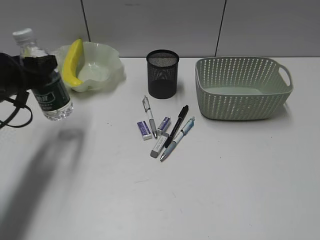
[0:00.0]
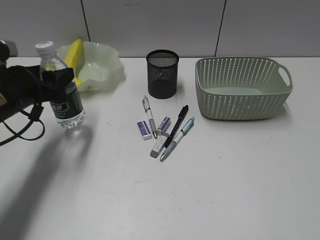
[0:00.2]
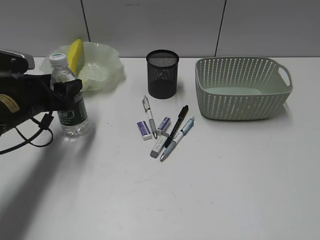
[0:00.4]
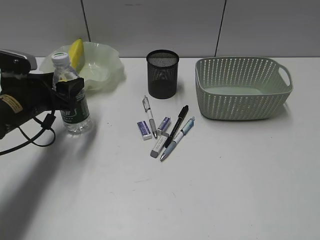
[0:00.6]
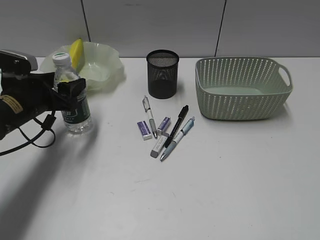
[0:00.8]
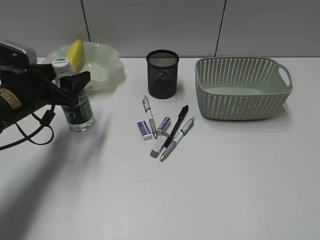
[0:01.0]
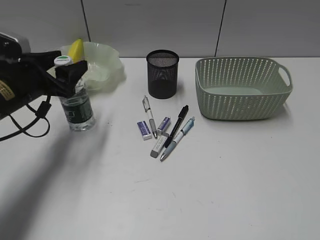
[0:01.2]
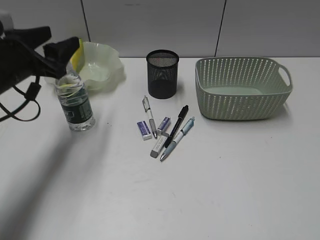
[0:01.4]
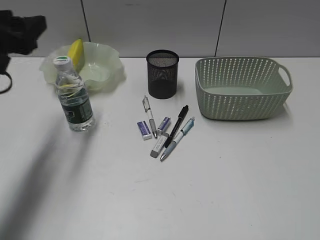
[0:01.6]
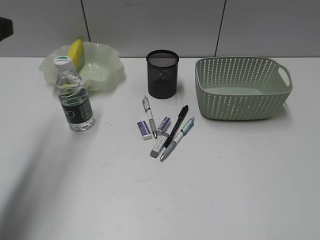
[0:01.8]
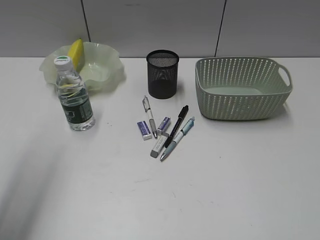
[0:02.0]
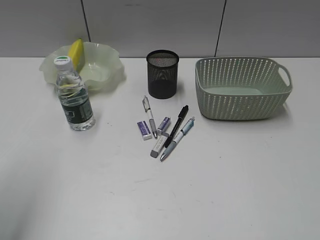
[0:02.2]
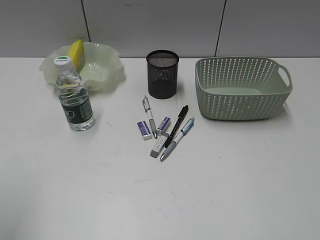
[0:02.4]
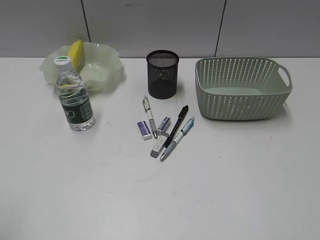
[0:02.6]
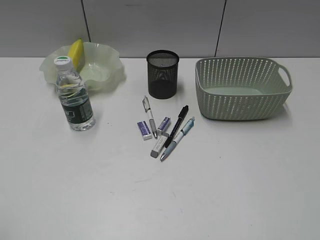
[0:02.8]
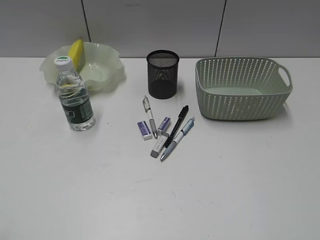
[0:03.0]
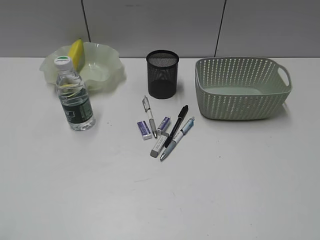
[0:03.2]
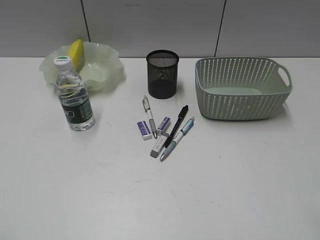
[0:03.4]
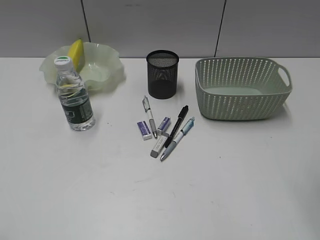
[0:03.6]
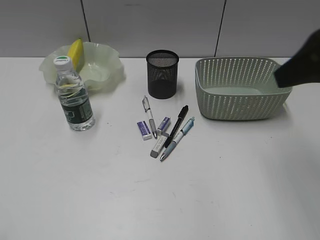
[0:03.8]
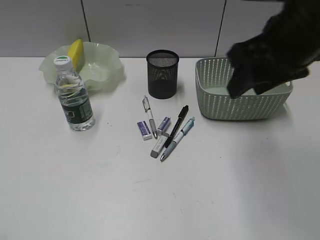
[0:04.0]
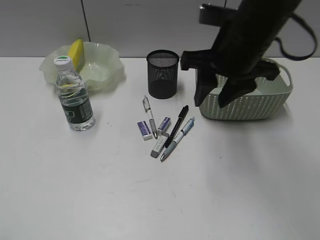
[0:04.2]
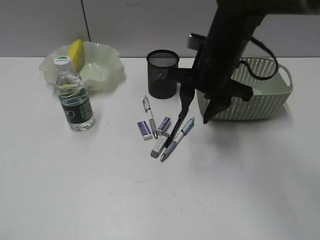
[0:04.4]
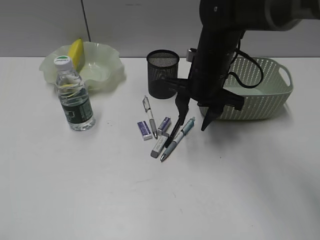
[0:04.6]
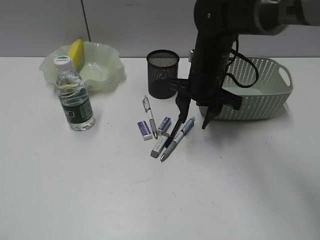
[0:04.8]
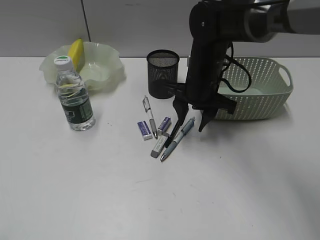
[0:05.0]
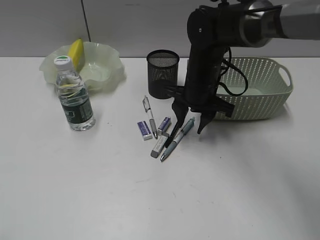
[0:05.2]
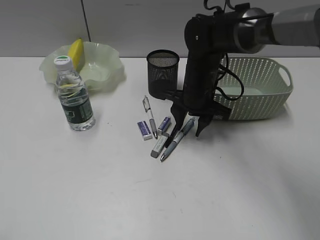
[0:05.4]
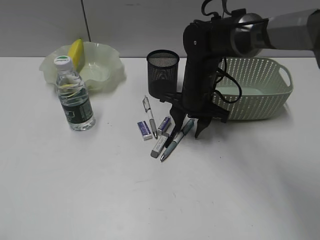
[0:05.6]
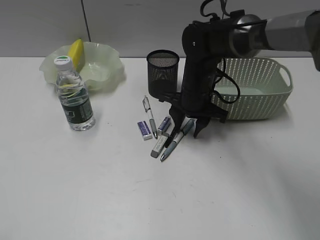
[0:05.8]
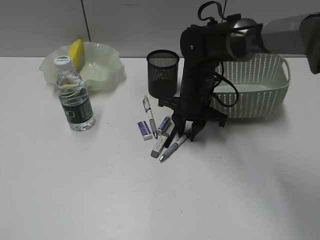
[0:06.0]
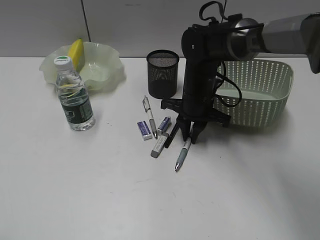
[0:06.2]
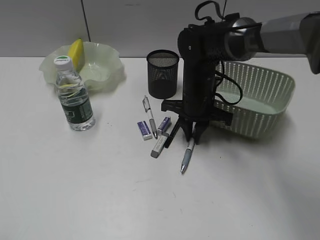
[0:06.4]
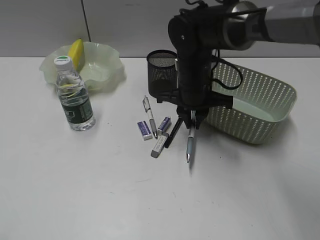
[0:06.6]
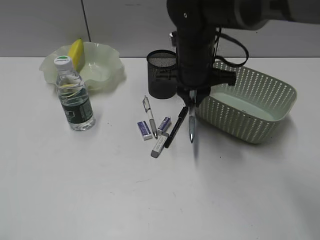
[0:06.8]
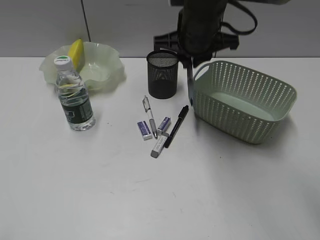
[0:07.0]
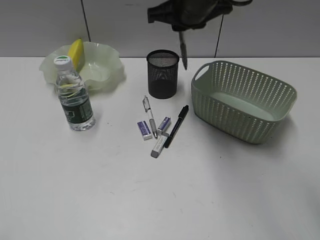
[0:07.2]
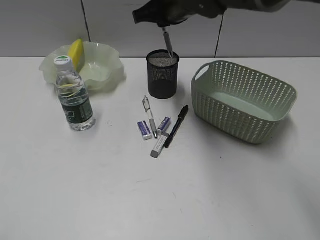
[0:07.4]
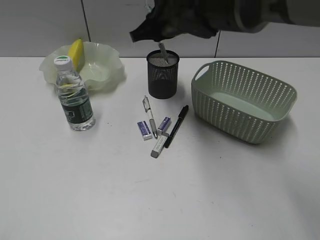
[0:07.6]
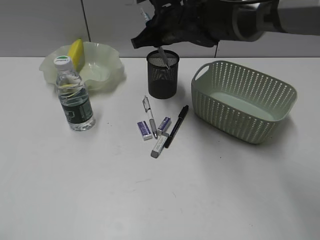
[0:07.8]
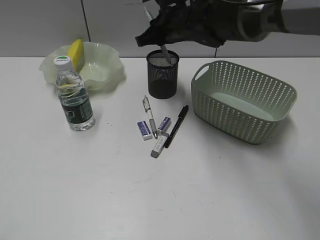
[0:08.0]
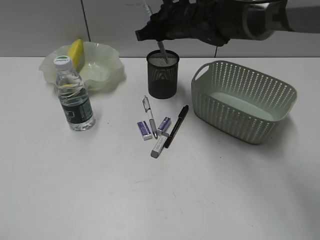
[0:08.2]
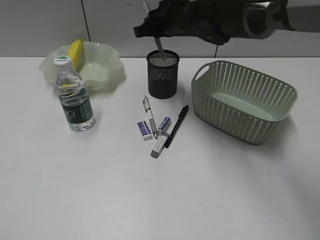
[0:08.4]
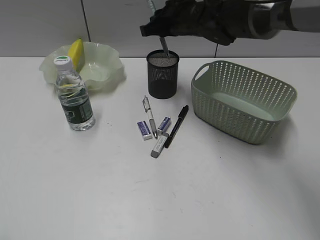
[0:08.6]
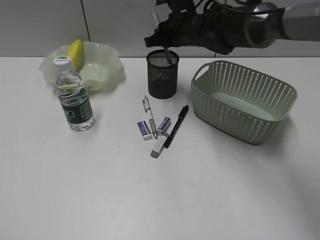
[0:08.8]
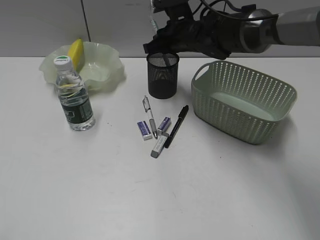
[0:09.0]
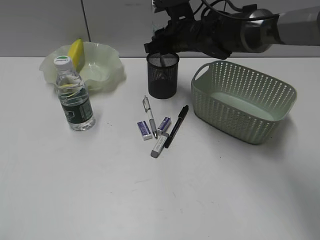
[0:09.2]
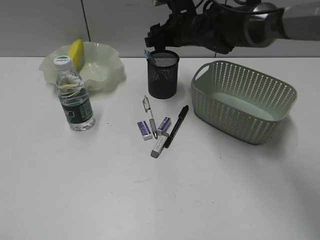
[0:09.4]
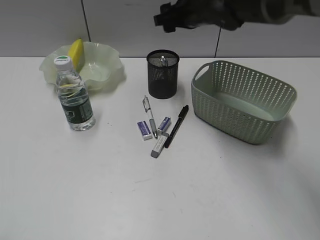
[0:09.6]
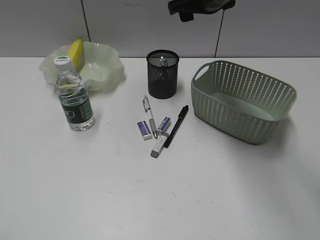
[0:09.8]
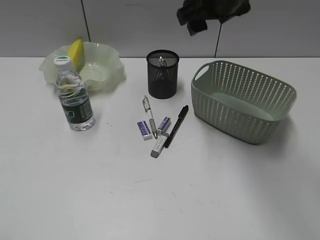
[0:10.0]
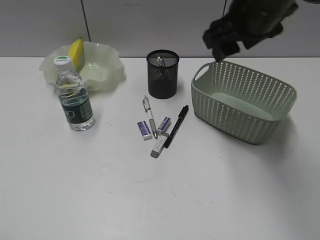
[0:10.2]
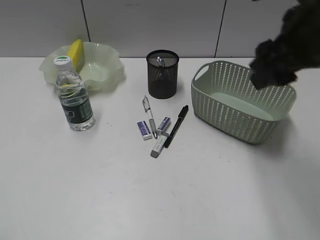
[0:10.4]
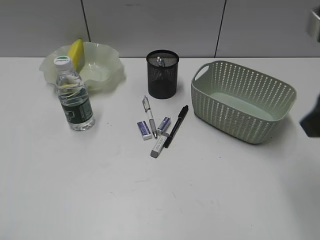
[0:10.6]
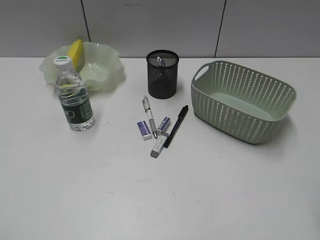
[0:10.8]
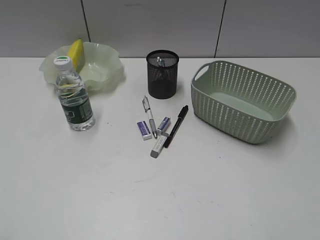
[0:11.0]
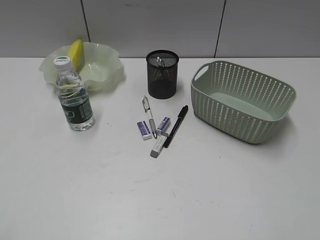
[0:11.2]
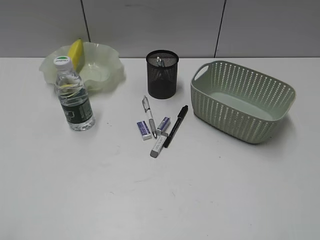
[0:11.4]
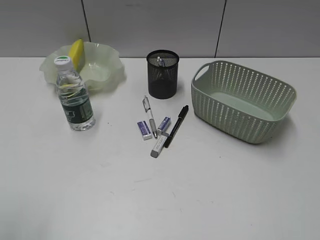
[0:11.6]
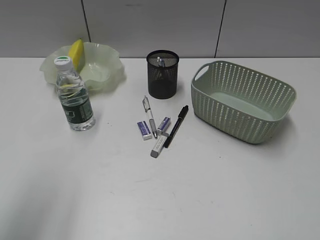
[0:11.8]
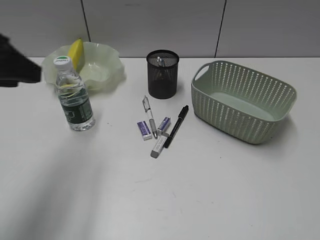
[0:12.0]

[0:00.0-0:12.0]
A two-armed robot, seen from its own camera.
Step, 1.4 to 6.2 s: Grasp the blue pen with right gripper.
Step, 6.4 to 9.4 s: Place the blue pen in pen holder with right gripper.
0.0 to 1.6 s: The left gripper goes about 5 cm upward.
1.6 to 3.0 s: The left gripper is displaced backward by roughly 30 cm.
3.0 to 4.4 s: The right gripper goes approximately 40 cm forward and to the left.
4.4 to 6.0 s: The right gripper goes approximately 10 cm downward.
6.0 to 7.6 s: The right gripper goes approximately 15 cm upward.
7.6 to 9.0 s: The right gripper travels downward by some 5 cm.
9.0 to 10.4 s: The right gripper heads backward, upward and to the right, covering roughly 30 cm, and opens.
10.4 to 12.0 s: The left gripper heads forward and to the right, covering some 20 cm. Meanwhile the right gripper heads backward and to the right, covering some 30 cm.

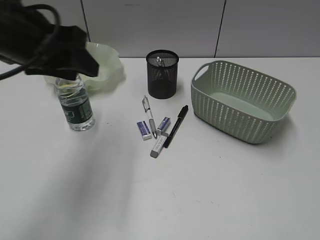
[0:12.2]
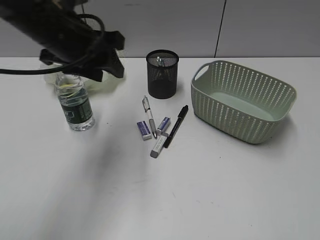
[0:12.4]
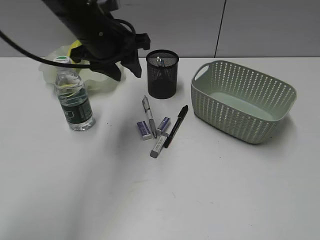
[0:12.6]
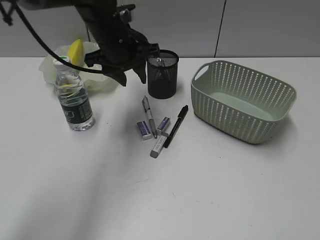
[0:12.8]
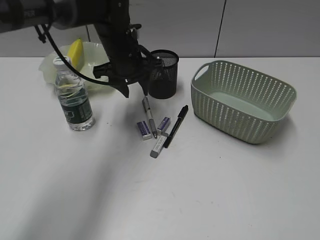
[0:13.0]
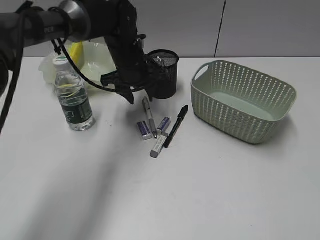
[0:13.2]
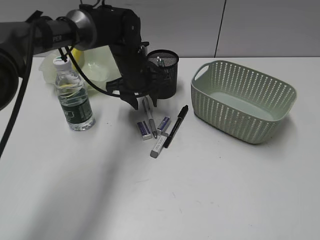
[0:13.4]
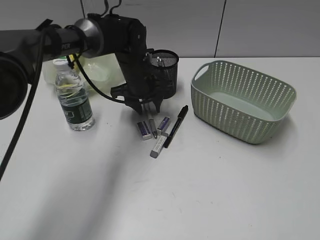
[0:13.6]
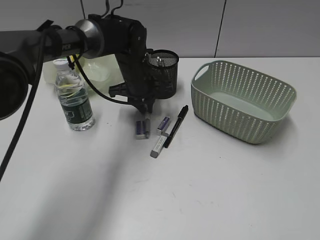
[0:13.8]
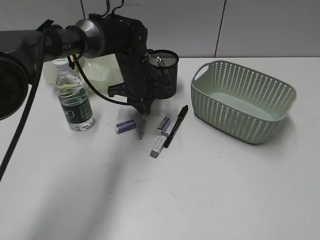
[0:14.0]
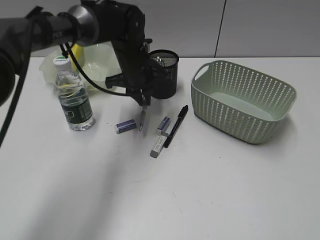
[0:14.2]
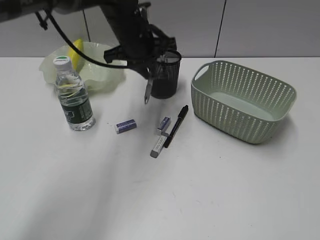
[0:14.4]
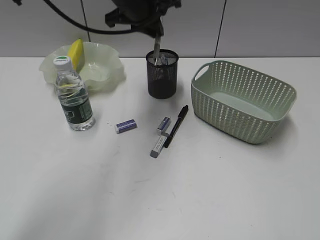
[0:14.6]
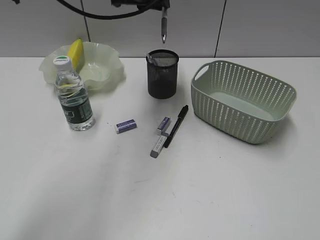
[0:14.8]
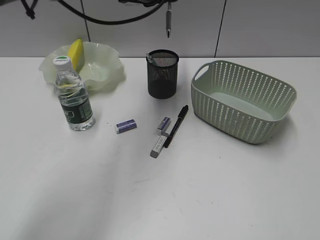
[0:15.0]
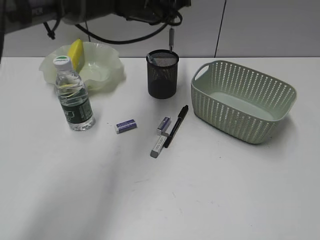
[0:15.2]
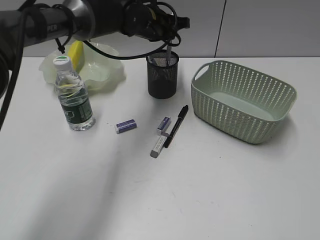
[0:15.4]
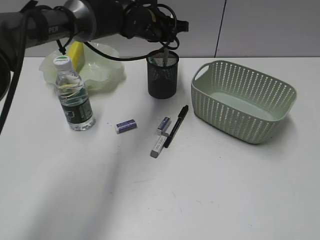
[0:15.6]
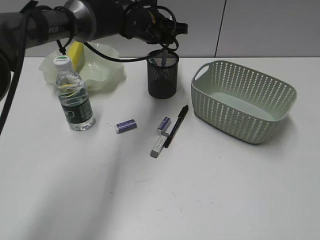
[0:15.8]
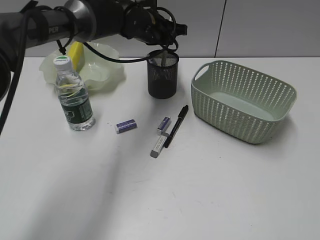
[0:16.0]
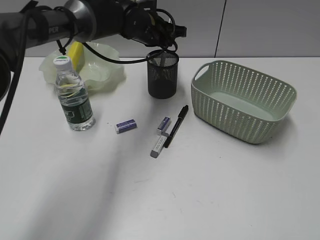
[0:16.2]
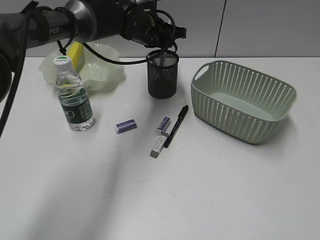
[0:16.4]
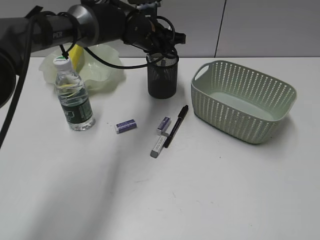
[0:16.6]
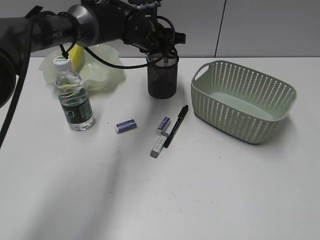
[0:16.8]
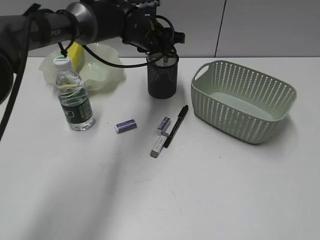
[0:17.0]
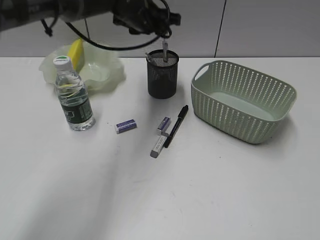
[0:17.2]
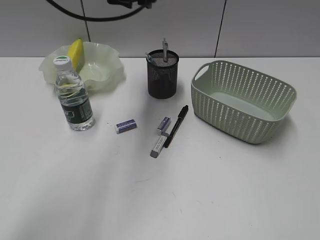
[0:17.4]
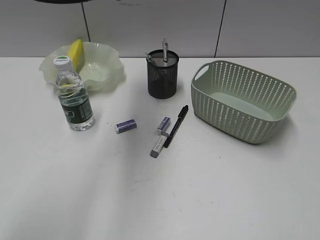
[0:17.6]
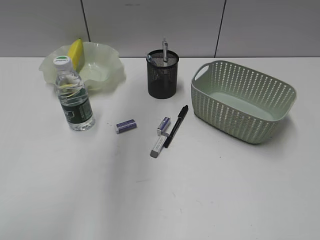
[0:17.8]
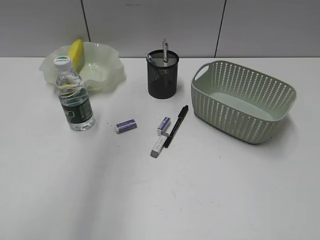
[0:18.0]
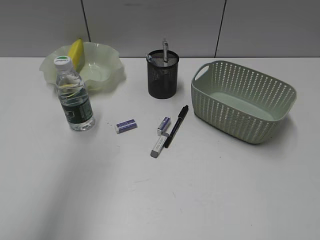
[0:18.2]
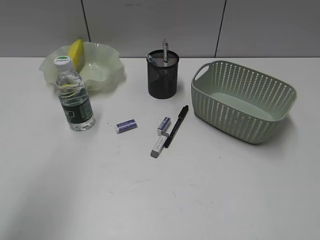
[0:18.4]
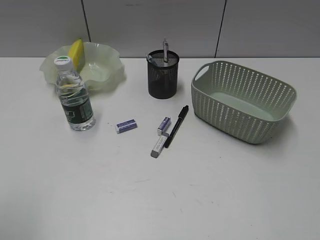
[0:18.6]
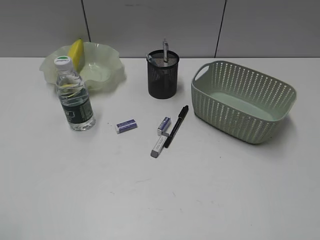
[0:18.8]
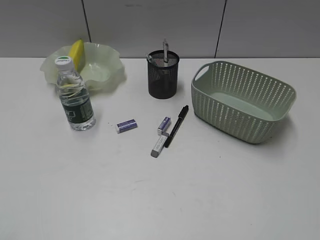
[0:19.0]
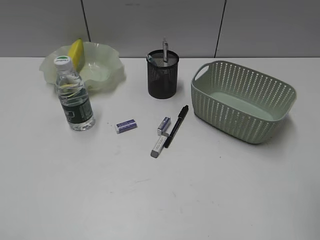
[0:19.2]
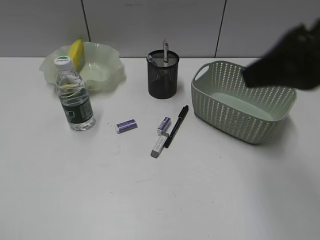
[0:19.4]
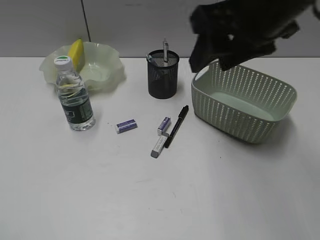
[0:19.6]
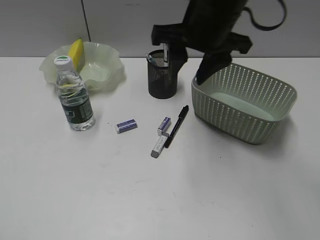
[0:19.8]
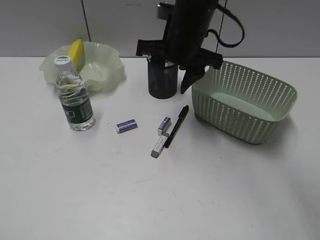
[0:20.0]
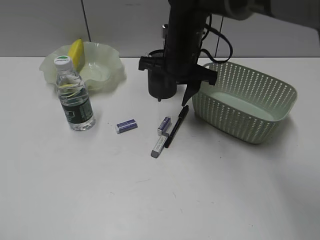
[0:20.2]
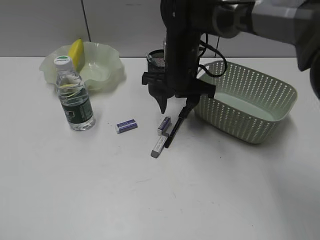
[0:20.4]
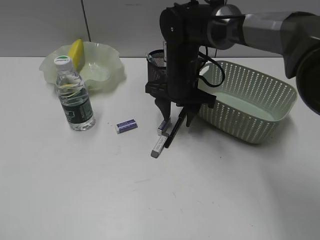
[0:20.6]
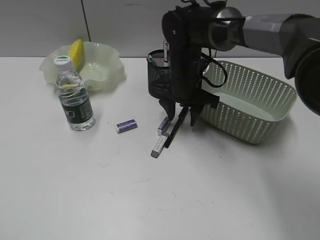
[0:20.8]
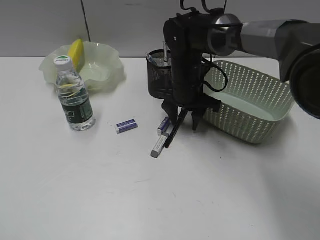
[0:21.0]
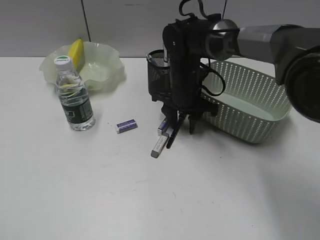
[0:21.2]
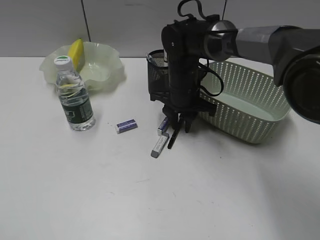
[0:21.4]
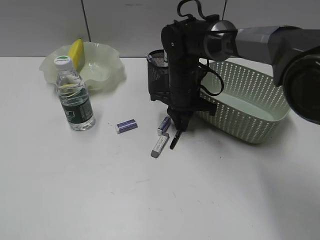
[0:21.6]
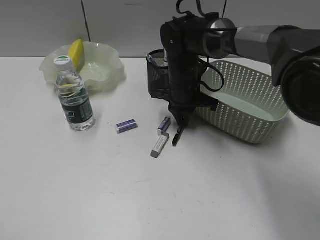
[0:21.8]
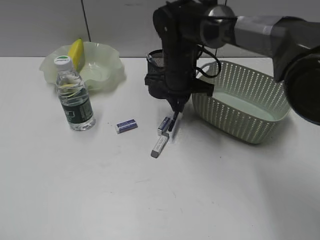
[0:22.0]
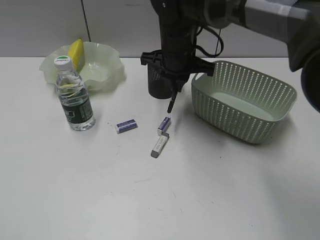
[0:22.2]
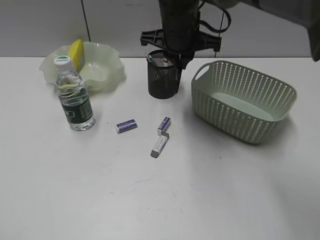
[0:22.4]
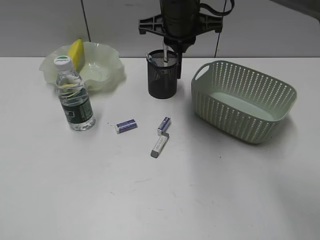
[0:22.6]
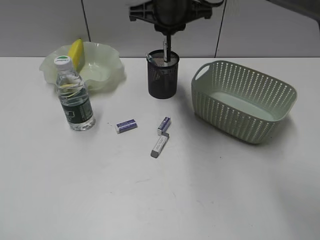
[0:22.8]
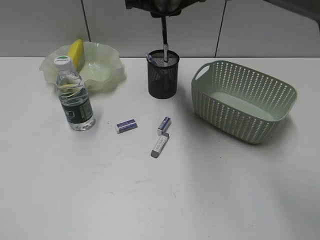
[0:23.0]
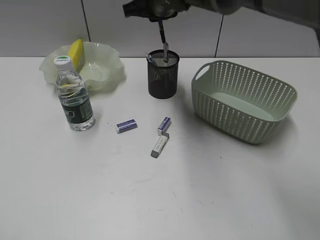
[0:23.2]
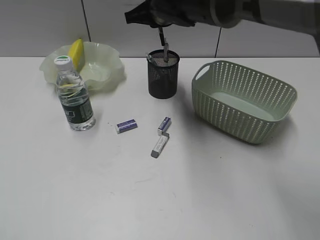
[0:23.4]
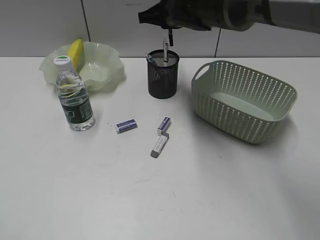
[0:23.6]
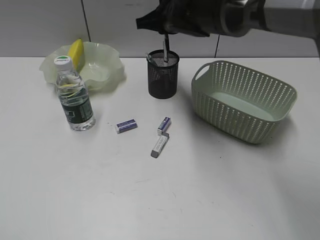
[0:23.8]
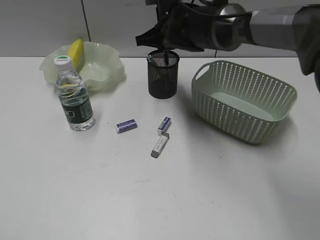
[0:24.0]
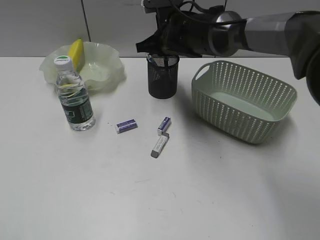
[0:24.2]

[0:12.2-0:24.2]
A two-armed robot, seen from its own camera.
Step, 14.0 to 17.0 s: Place the gray pen in pen holder with left gripper.
Step, 17.2 to 21.6 s: Grasp the black pen with right gripper.
12.2 to 13.8 s: The left gripper heads downward, forward and to the right, covering roughly 30 cm, and closes its fingers.
13.8 to 15.2 s: The left gripper shifts approximately 15 cm upward.
15.2 to 16.6 s: The left gripper heads downward, covering approximately 5 cm.
16.6 to 18.2 s: The left gripper goes some 40 cm backward, upward and to the left, and opens.
18.2 to 19.8 s: The left gripper goes some 30 cm backward, downward and to the left. Meanwhile the right gripper goes approximately 40 cm forward and to the left.
19.8 to 21.2 s: The right gripper goes roughly 20 cm downward and forward.
21.2 to 22.6 s: The right gripper moves upward, roughly 15 cm, and closes.
22.6 to 24.2 s: The right gripper shifts roughly 10 cm downward and forward.
